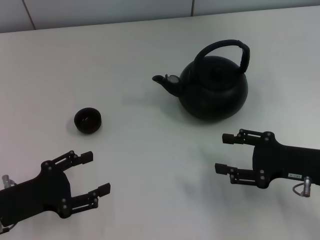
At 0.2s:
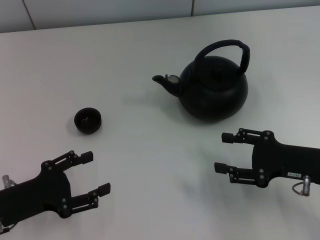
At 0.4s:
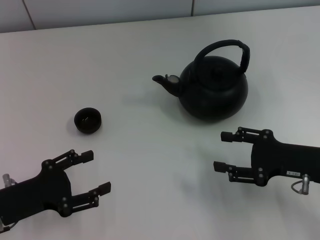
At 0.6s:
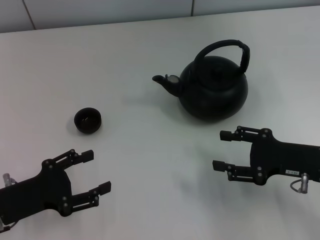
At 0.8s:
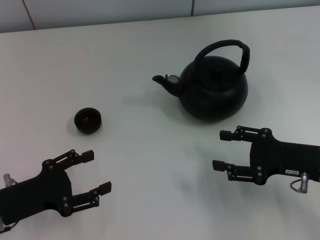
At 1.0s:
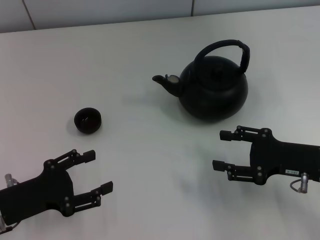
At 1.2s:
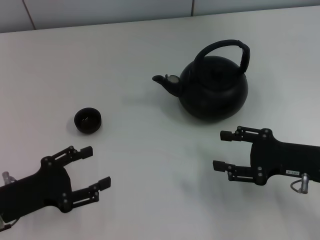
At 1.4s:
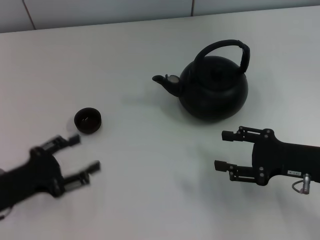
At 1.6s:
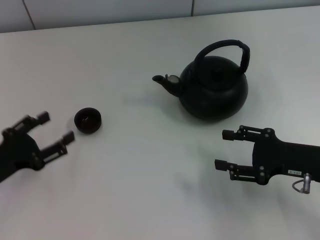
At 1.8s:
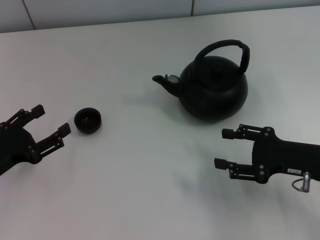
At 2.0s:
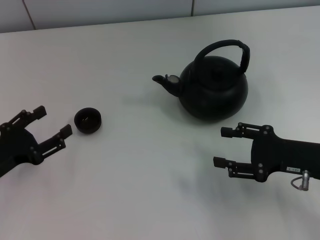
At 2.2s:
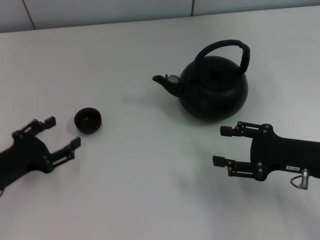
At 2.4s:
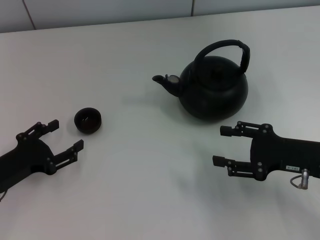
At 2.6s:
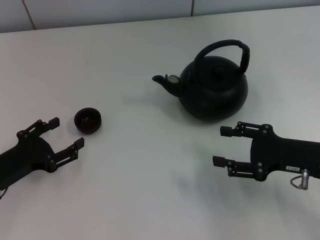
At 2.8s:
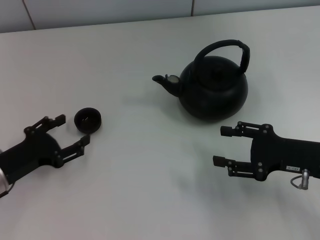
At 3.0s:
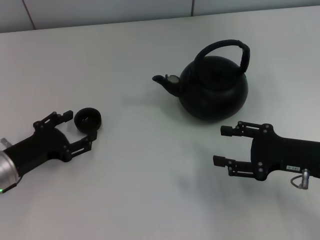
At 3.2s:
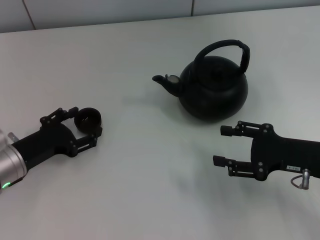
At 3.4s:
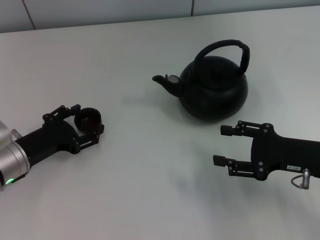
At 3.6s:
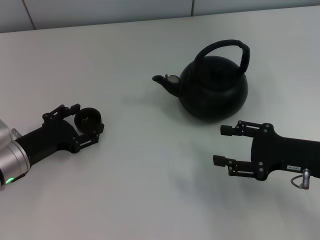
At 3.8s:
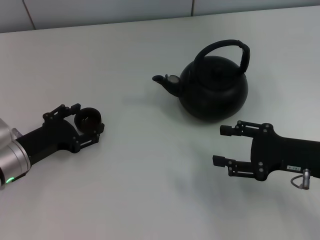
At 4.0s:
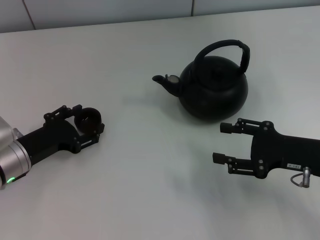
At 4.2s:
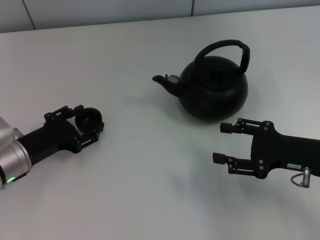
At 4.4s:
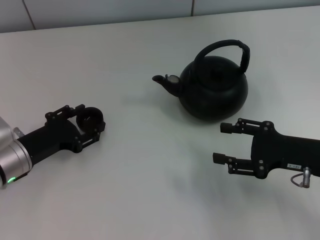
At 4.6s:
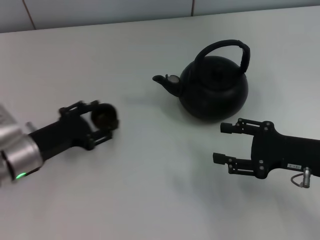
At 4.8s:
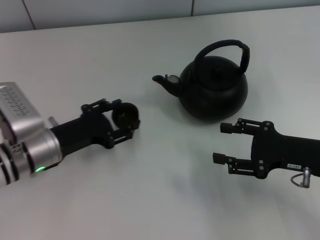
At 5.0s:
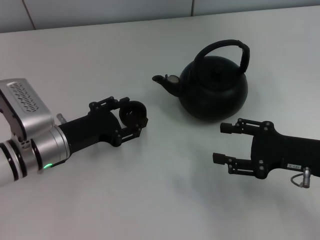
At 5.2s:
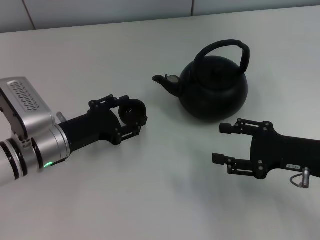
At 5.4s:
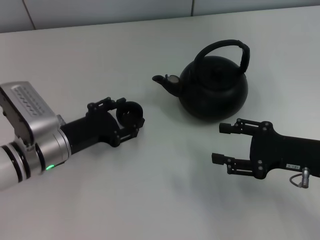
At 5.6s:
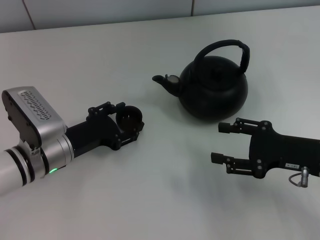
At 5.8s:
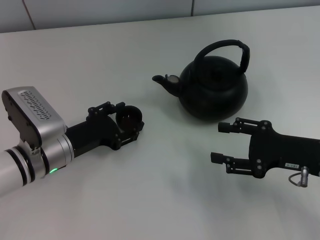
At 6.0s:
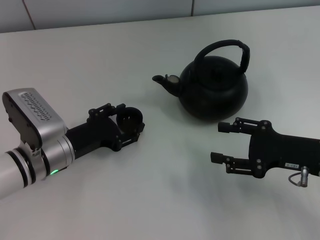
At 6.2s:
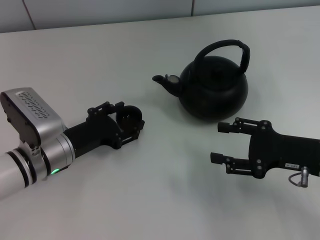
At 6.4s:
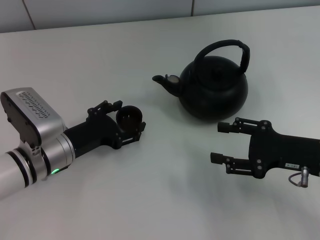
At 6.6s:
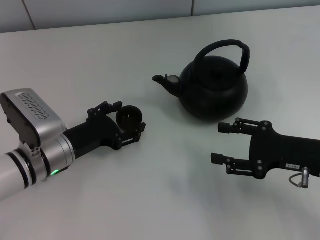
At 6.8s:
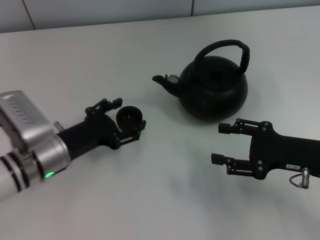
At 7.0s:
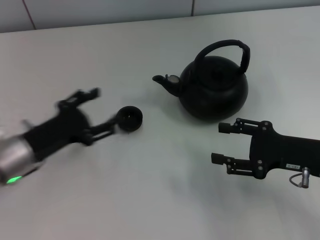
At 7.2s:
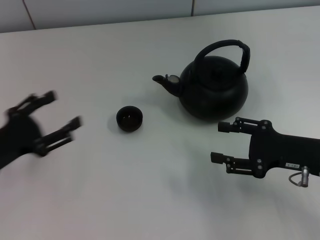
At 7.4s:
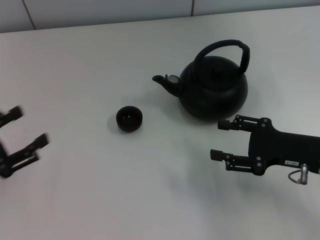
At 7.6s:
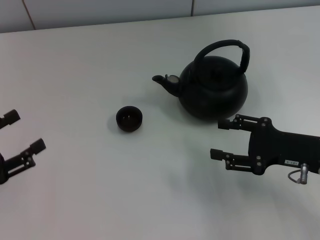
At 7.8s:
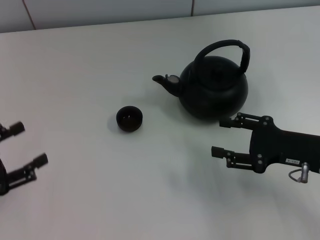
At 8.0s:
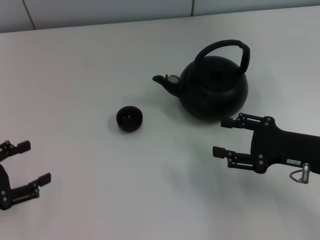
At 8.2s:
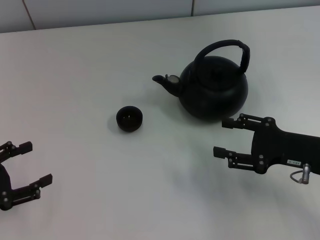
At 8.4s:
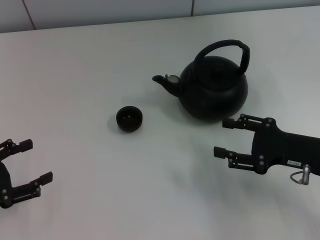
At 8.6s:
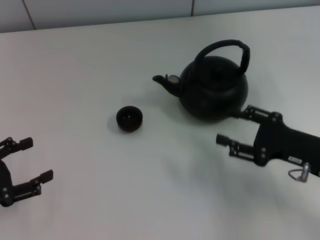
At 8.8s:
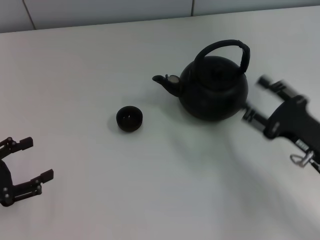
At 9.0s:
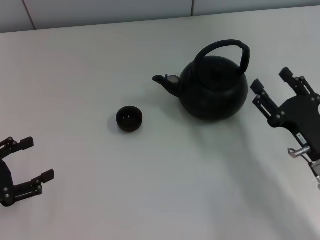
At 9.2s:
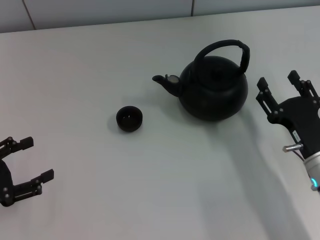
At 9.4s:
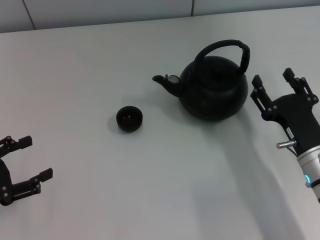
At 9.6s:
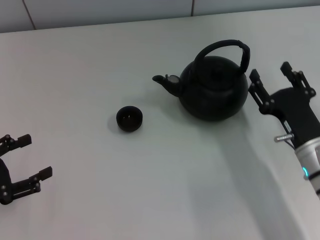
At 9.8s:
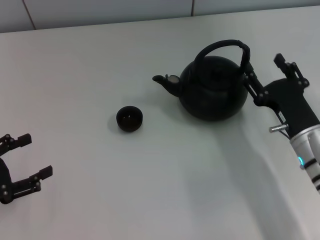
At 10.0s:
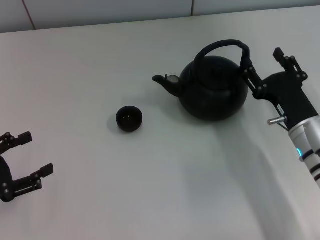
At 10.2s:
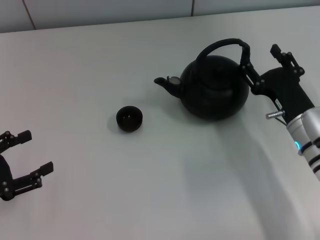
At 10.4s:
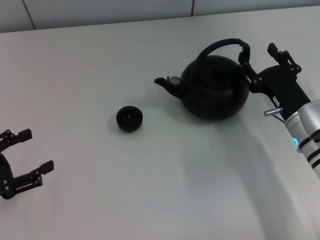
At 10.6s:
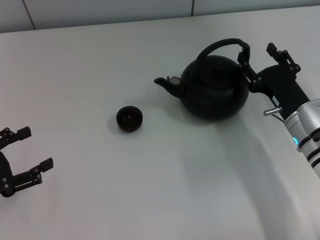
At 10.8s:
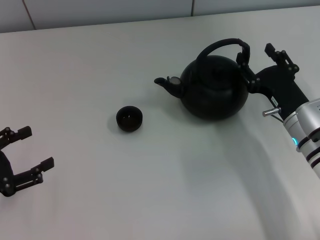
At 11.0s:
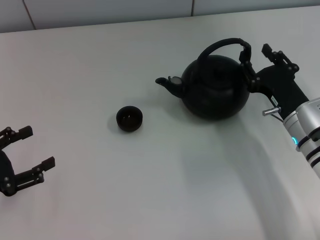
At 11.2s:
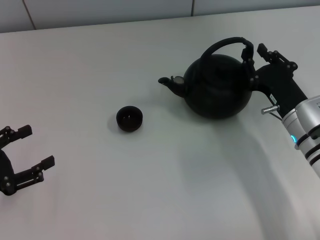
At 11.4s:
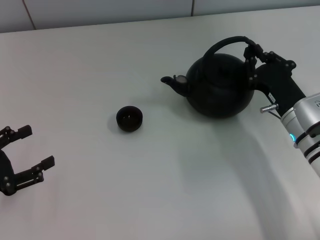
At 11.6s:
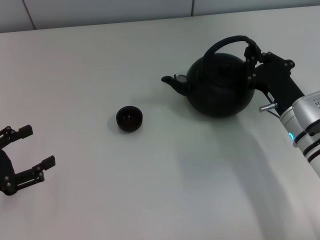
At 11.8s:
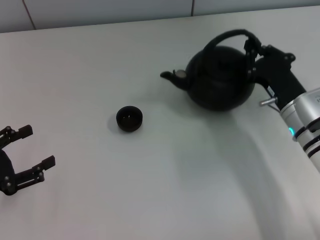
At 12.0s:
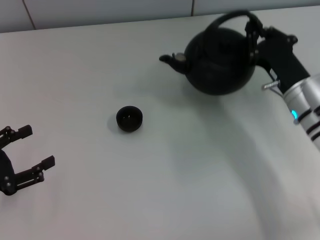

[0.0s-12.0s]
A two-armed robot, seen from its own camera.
Task of the whole recording: Grasp the handle of the teapot with one hand and pour tea into the teacup.
Step, 0.0s to 4.8s: Pick up the teacup with the left gripper.
Step, 5.0s to 6.8s: Place the teacup in the center of view with the left gripper.
0.0s to 1.6s: The grippers move only a little.
1.6s to 3.0s: The left gripper shifts by roughly 5 cm.
3.0s to 4.4s: The left gripper closes up.
4.4s to 6.0s: The left gripper goes approximately 5 cm to the right, and opens.
6.0s to 7.6s: The left gripper shifts roughly 20 cm to the left and backward.
7.6s to 9.0s: The right gripper moves roughly 5 cm.
9.0s to 10.4s: The right gripper shifts about 5 cm forward.
10.4s to 12.0s: The right gripper closes its fingers.

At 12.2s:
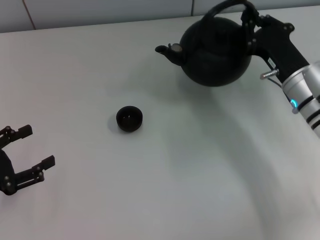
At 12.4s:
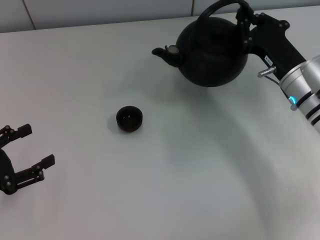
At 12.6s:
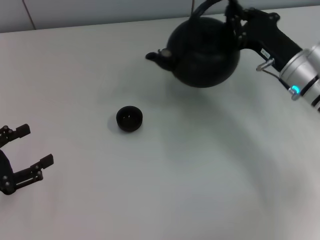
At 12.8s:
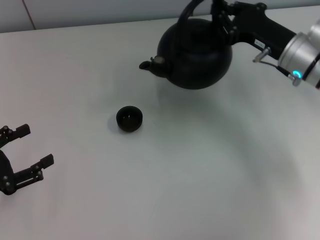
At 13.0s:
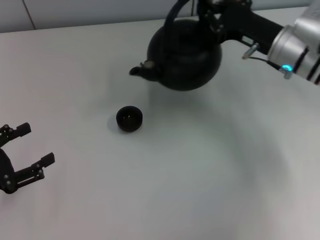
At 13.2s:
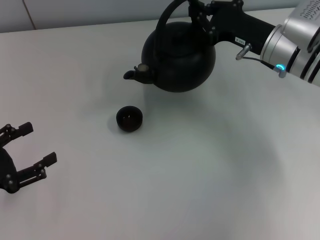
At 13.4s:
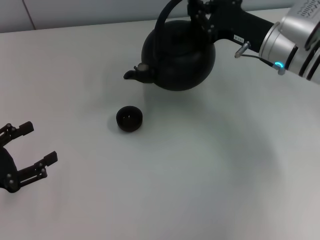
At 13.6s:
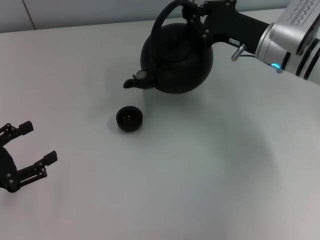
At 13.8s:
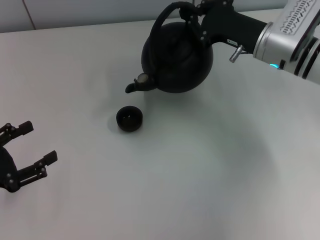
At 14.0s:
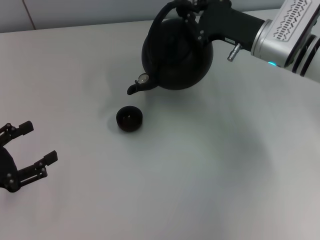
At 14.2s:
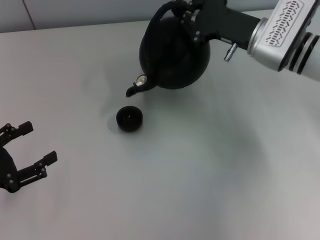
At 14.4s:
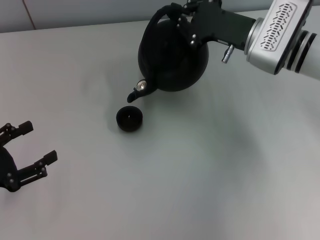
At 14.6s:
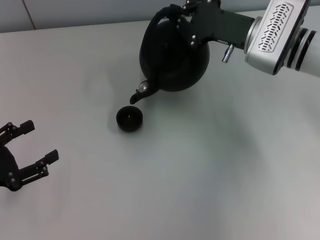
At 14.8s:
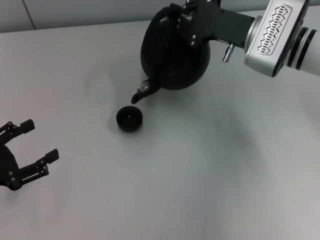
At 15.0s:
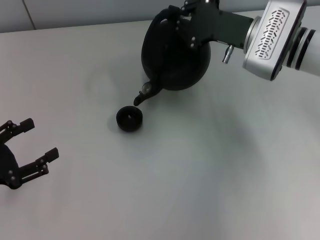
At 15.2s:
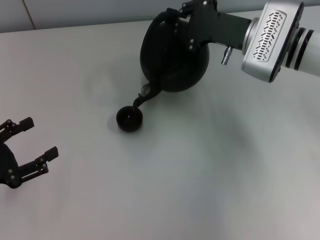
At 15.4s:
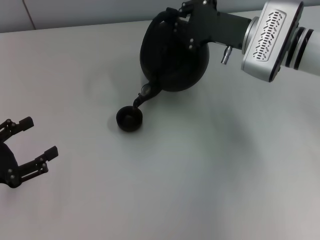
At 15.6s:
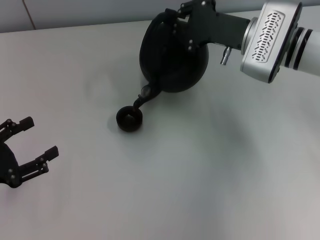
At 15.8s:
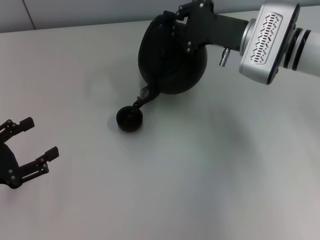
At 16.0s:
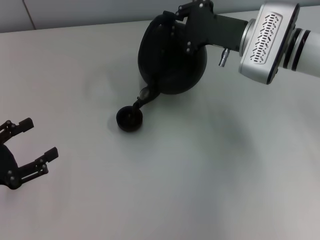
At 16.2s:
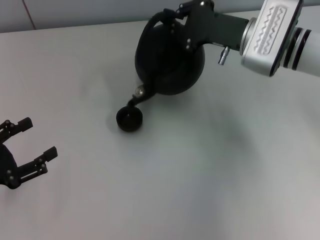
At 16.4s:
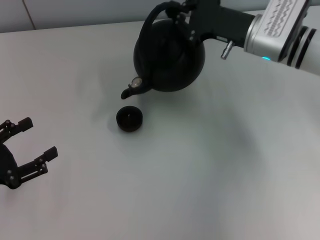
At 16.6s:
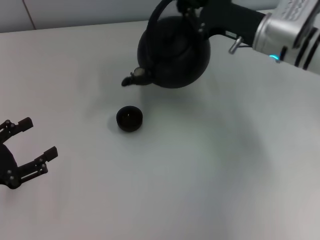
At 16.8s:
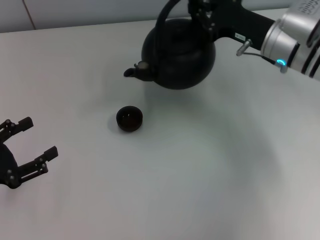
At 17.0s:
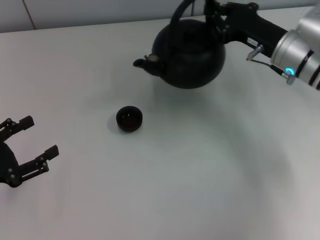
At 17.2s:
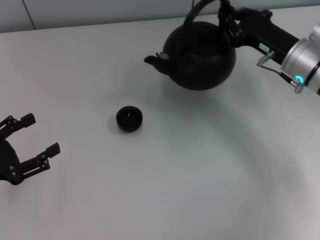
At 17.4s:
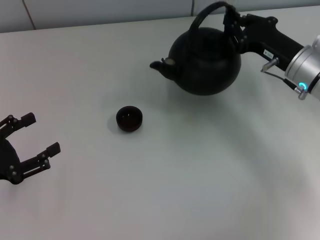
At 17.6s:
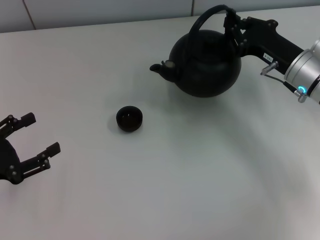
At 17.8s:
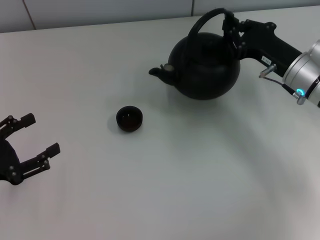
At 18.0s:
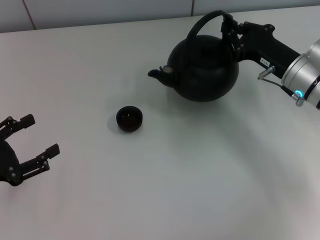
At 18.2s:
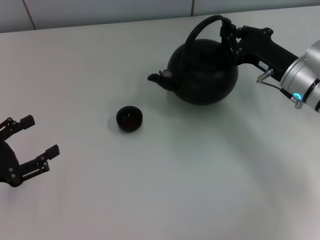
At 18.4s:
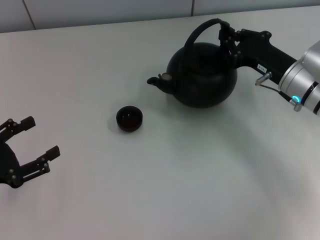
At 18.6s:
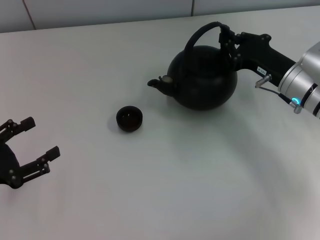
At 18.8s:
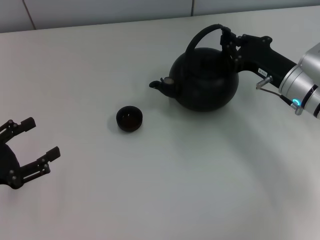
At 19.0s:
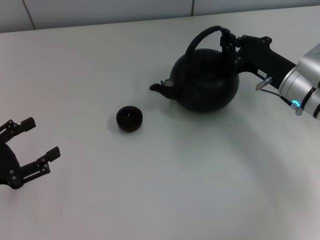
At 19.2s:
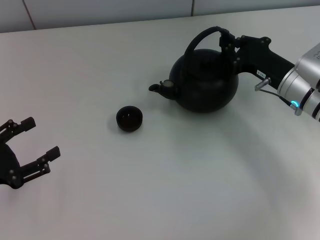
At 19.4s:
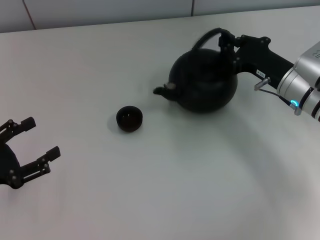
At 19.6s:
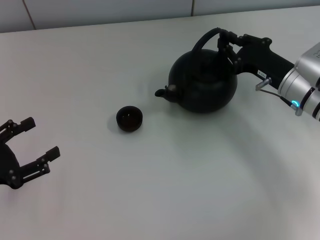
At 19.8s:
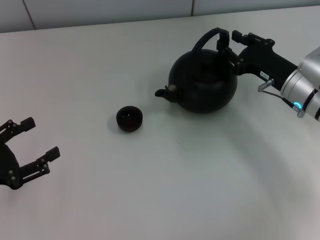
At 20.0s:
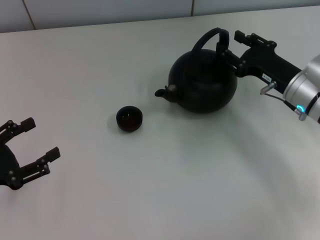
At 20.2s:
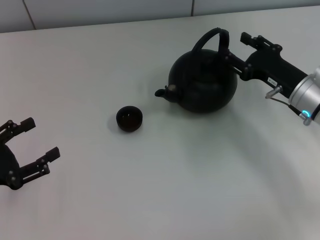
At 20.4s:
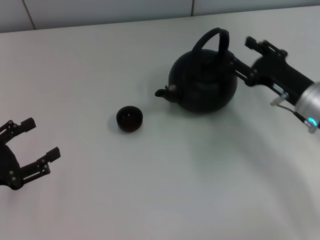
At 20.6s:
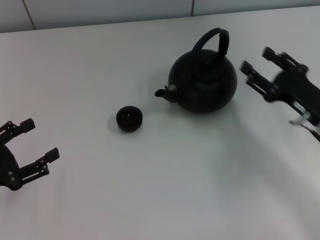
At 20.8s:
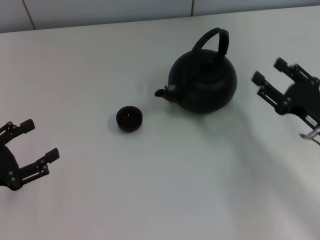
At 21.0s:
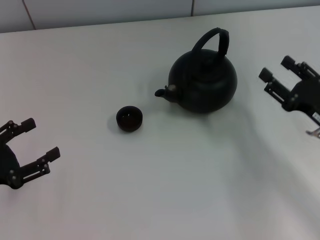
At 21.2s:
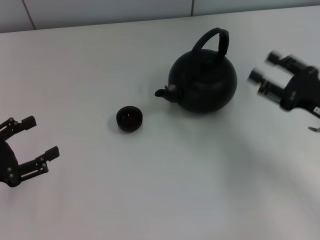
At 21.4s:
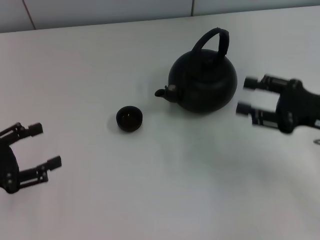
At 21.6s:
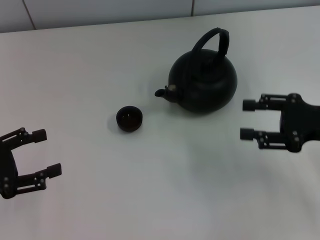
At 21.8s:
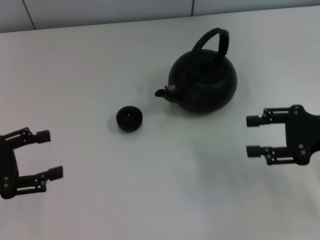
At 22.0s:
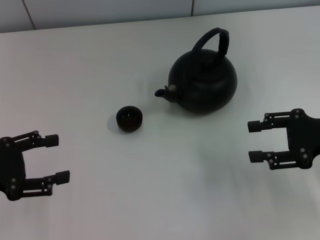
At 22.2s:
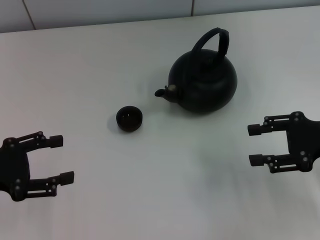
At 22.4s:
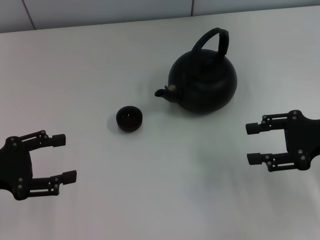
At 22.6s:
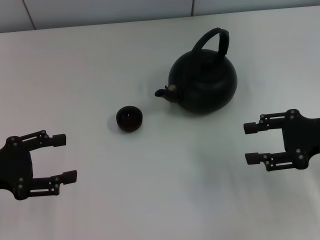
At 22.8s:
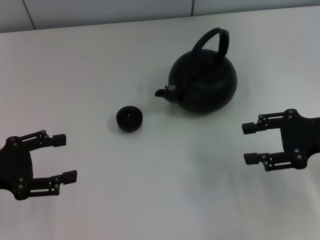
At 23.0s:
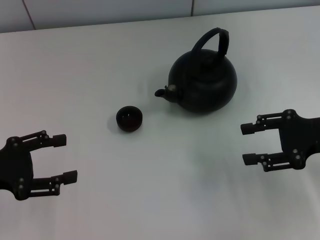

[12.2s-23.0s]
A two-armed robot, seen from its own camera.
Task of the whole recording: Grasp the handle of the teapot with one hand and pour tea into the teacup.
Step, 17.4s to 20.6s: Put down the teapot with the right gripper.
12.2s to 13.8s: The right gripper travels forward and upward by approximately 10 cm.
16.8s to 18.4s: The right gripper ends up roughly 5 cm from where it was.
18.4s to 20.0s: The right gripper opens.
20.0s to 21.4s: The right gripper shifts some 10 cm backward and to the right, and opens up.
